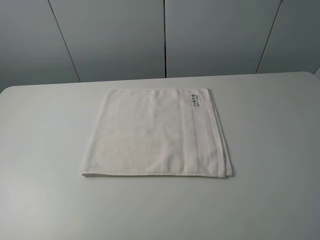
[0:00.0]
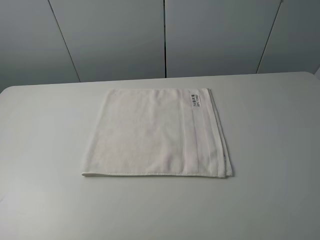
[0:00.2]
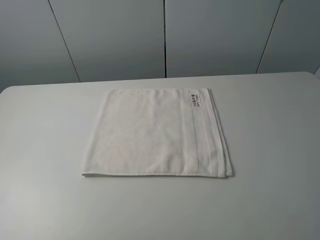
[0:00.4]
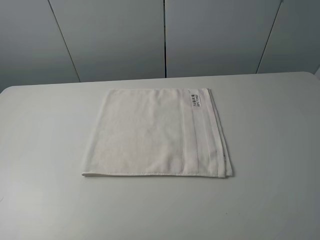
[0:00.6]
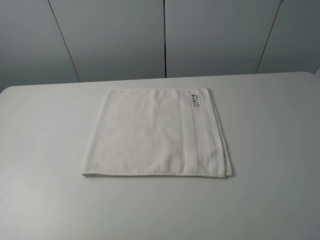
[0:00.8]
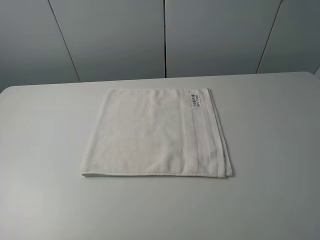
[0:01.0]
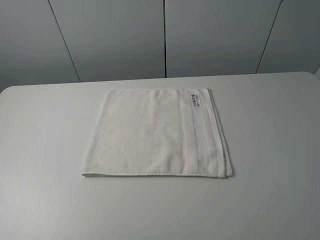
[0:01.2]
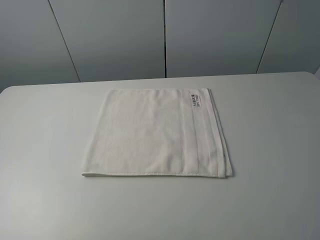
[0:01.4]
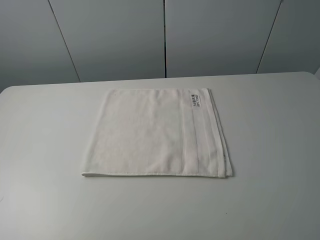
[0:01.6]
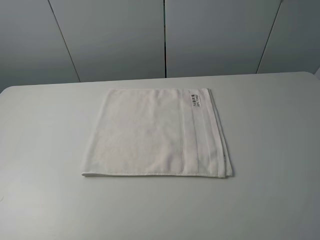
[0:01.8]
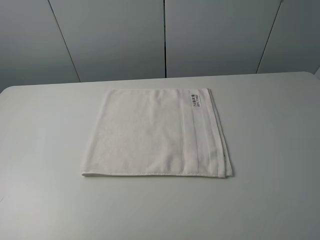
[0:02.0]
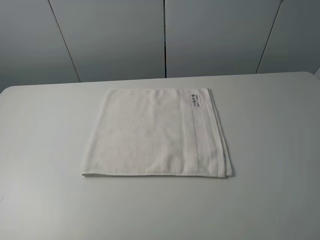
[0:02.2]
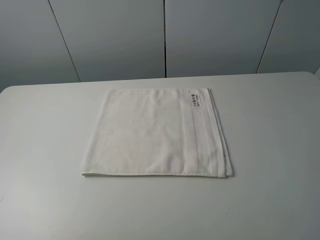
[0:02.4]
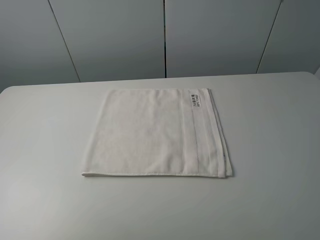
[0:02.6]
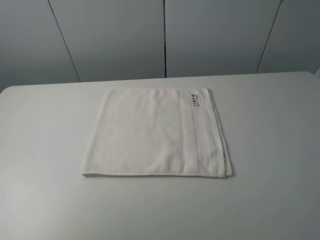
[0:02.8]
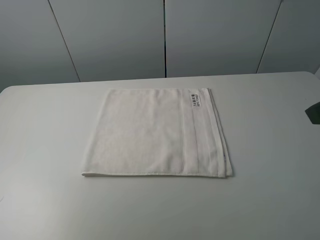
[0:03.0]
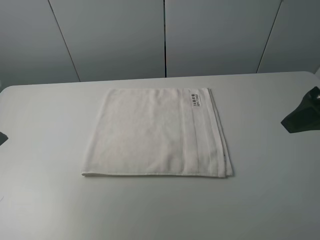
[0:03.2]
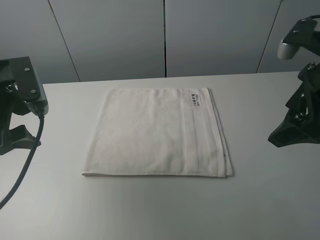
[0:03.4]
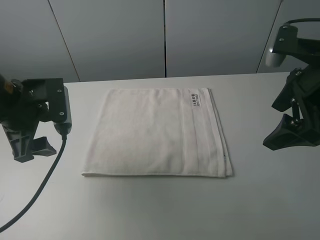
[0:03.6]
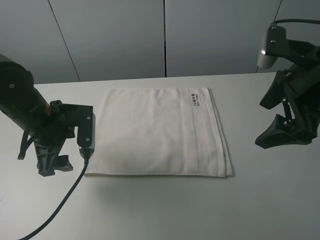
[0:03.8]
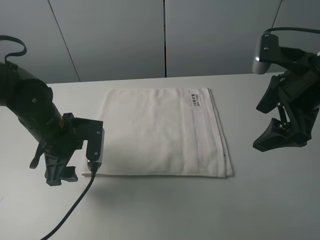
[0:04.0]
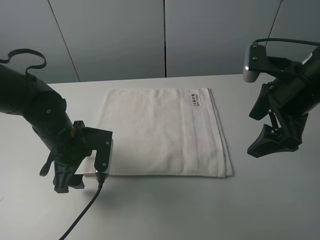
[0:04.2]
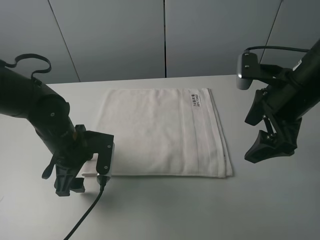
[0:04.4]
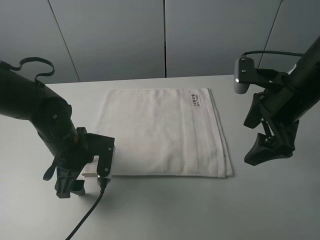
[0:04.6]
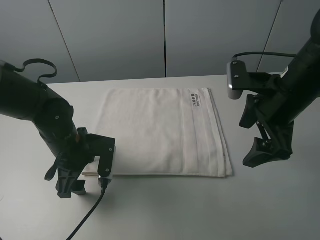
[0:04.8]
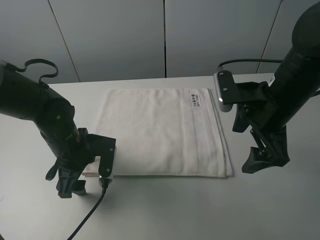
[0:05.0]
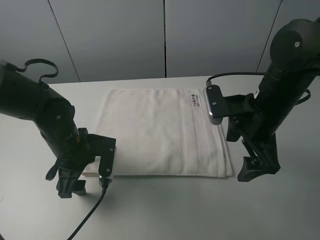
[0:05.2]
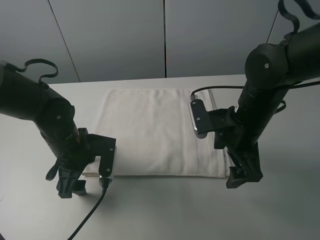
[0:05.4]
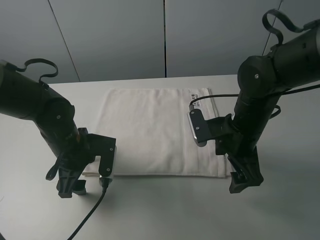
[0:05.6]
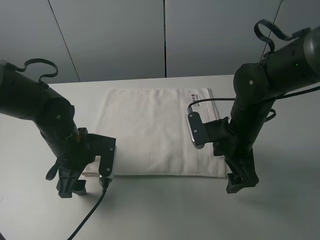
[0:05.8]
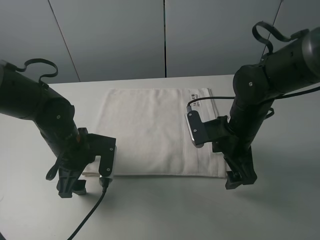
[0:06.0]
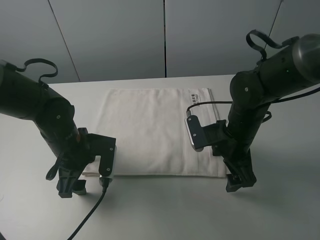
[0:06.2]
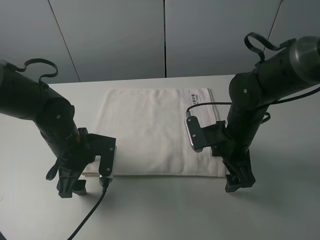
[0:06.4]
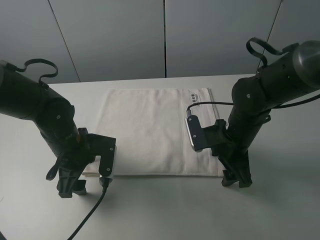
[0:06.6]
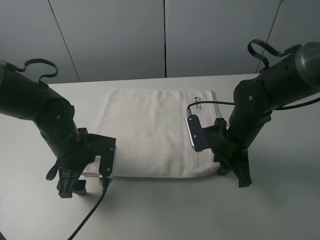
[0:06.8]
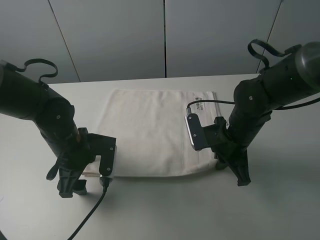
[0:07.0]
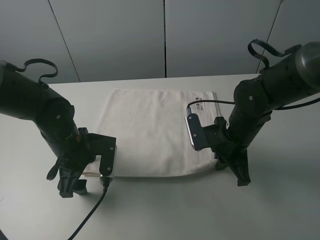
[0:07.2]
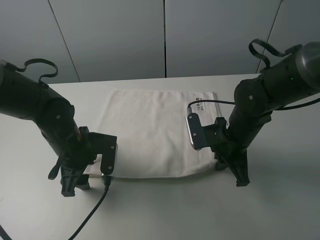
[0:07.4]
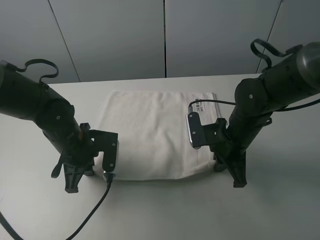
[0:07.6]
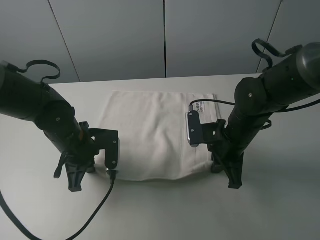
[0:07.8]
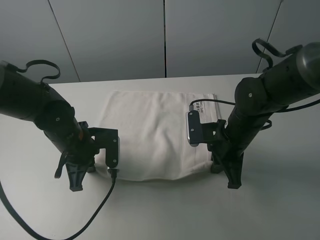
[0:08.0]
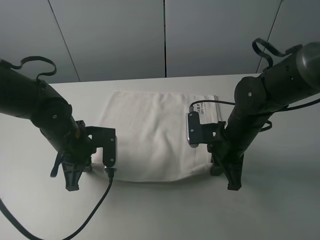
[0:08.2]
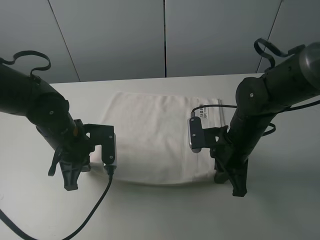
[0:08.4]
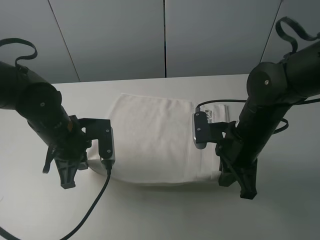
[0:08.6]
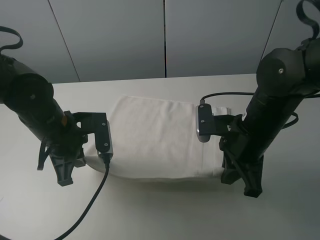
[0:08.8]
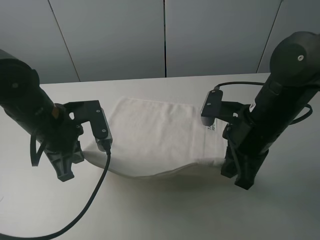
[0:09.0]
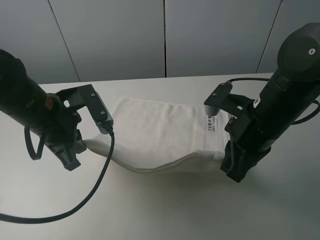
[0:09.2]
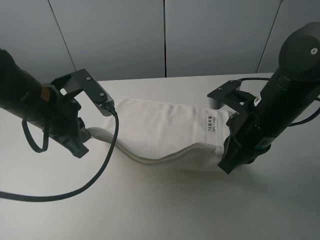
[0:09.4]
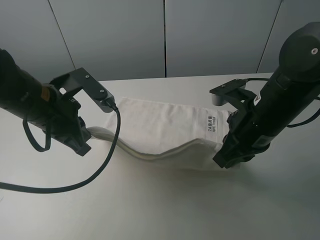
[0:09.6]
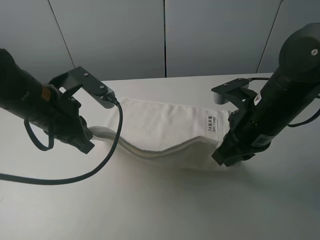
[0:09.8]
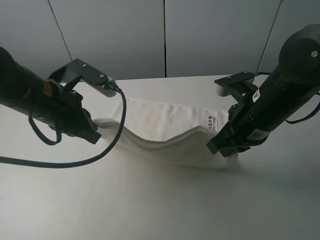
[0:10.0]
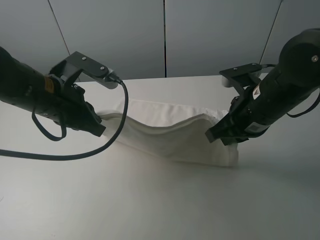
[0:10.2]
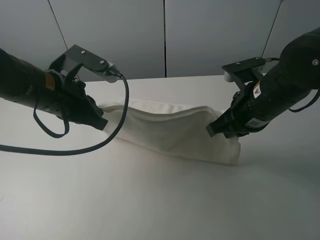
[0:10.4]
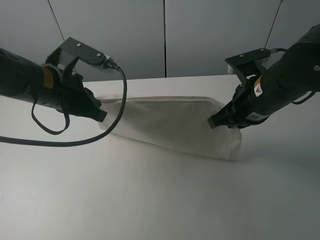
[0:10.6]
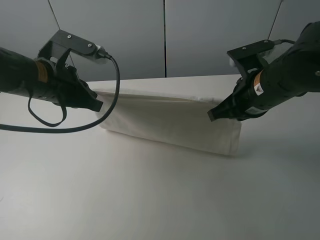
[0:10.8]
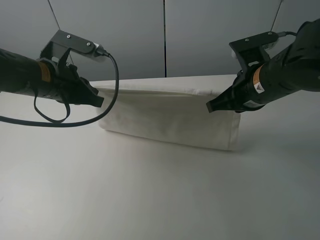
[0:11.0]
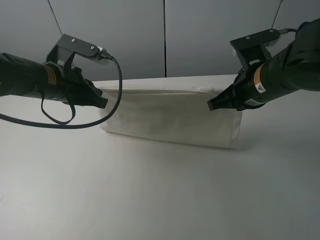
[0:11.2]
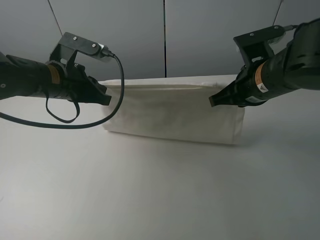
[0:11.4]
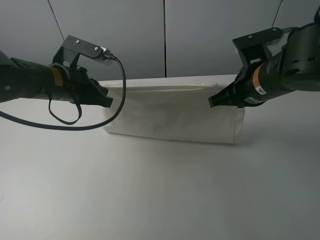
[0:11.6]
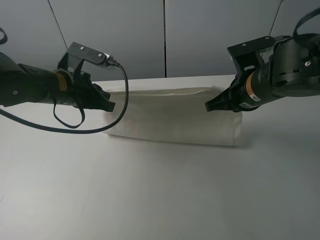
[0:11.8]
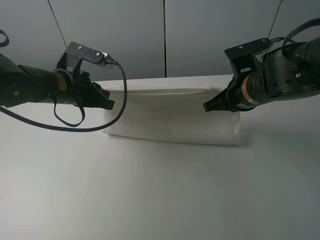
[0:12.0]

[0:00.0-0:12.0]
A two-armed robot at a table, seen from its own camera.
Task of the whole recording: fold the towels on the table.
Step, 0:00.0 to 0:06.8: Grasp the white towel with the right gripper.
Step, 0:07.0 to 0:07.6: Grasp the white towel with the left gripper.
0:00.0 to 0:01.6: Both grippers stay put.
0:03.0 to 0:04.4: The right gripper moves downward, forward and to the left, about 15 cm. The left gripper heads downward, to the right and forward, covering some 25 cm.
0:04.4 to 0:06.0: The right gripper travels downward and to the left by approximately 10 cm.
0:06.0 to 0:07.6: The left gripper closes; the right gripper closes its fingers.
0:07.6 to 0:09.0: Both grippers move upward, some 10 cm.
0:10.4 to 0:12.0: The left gripper heads forward, covering about 5 cm.

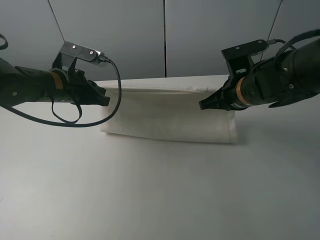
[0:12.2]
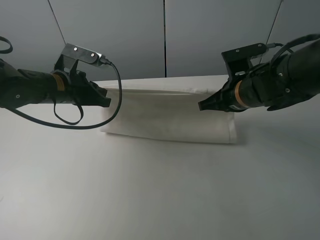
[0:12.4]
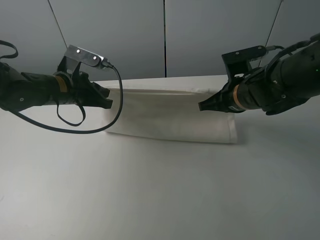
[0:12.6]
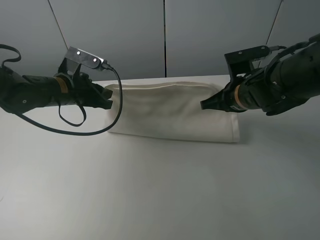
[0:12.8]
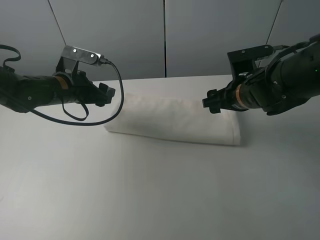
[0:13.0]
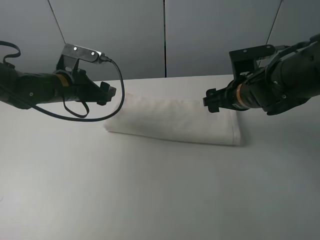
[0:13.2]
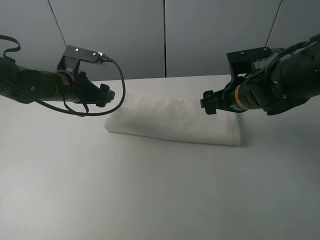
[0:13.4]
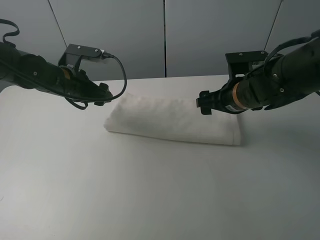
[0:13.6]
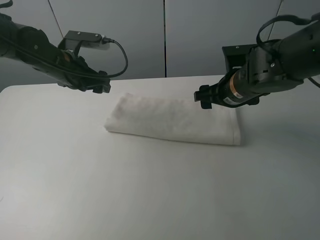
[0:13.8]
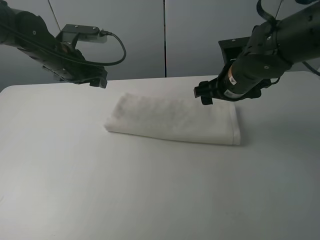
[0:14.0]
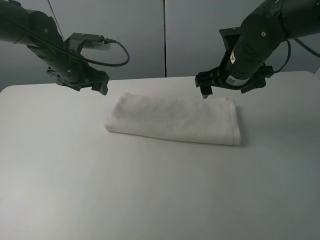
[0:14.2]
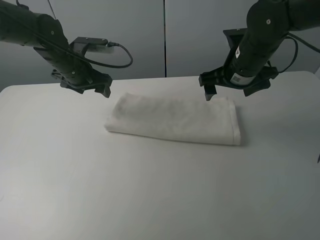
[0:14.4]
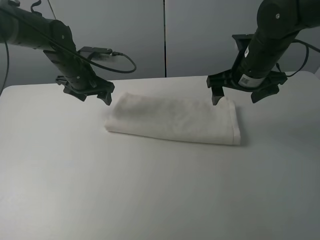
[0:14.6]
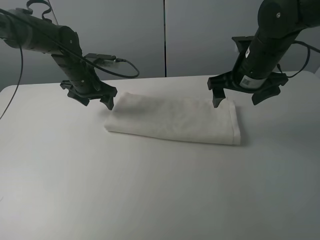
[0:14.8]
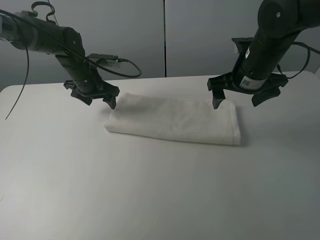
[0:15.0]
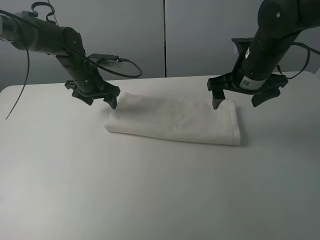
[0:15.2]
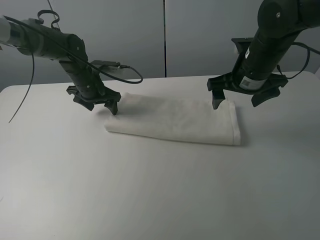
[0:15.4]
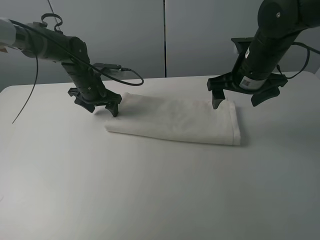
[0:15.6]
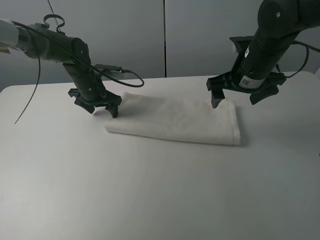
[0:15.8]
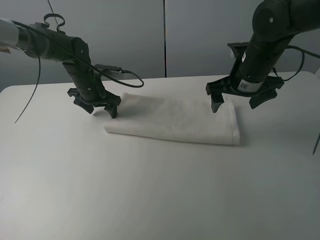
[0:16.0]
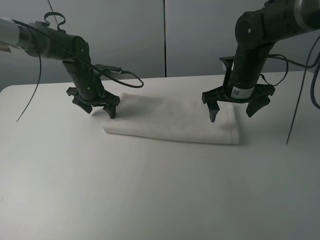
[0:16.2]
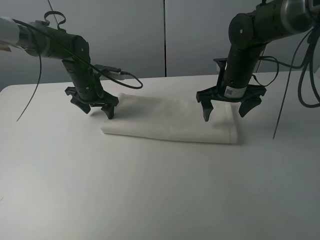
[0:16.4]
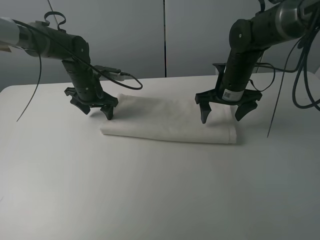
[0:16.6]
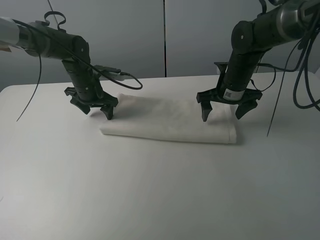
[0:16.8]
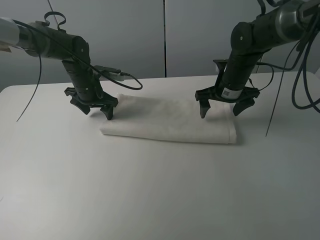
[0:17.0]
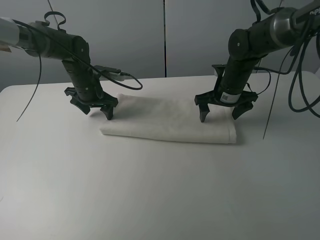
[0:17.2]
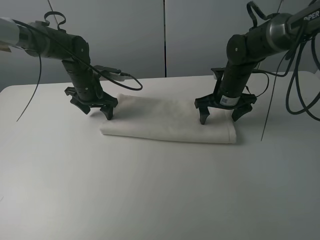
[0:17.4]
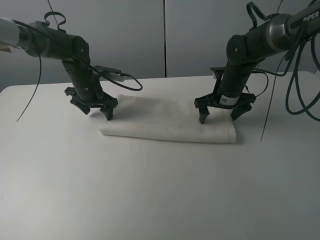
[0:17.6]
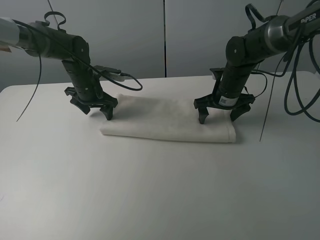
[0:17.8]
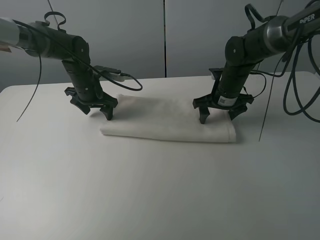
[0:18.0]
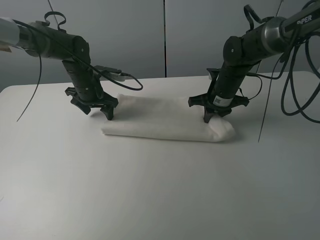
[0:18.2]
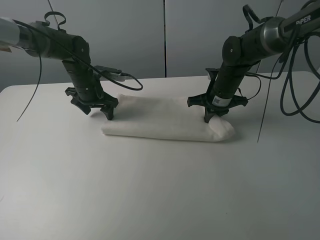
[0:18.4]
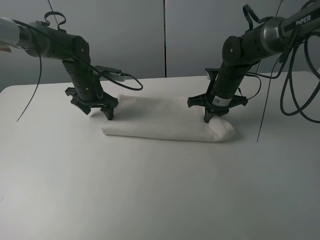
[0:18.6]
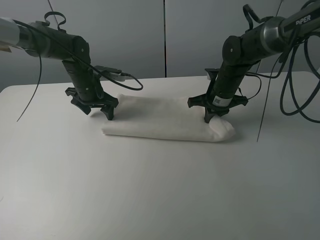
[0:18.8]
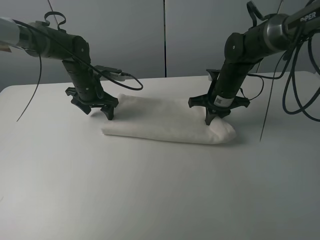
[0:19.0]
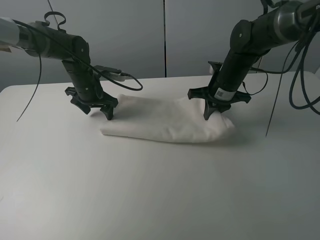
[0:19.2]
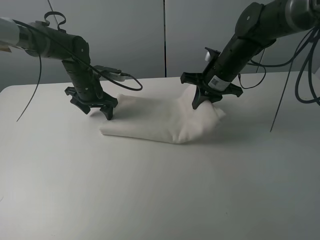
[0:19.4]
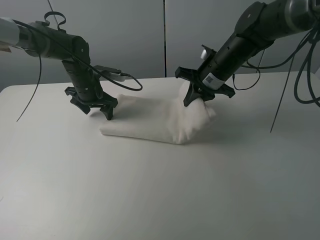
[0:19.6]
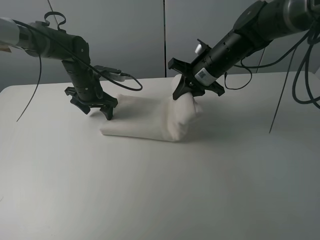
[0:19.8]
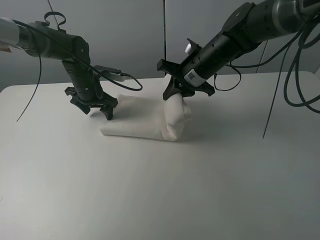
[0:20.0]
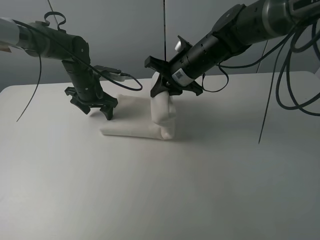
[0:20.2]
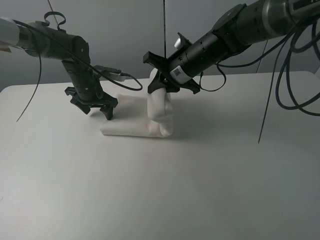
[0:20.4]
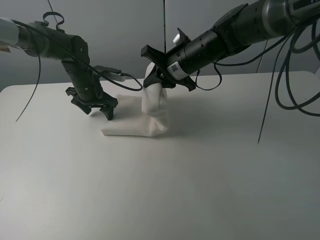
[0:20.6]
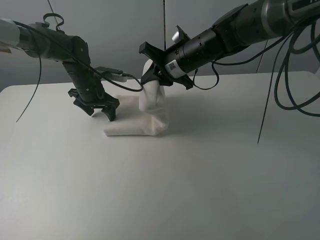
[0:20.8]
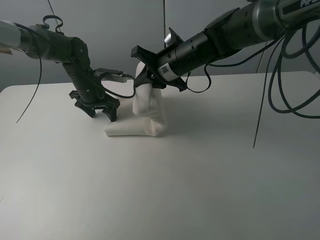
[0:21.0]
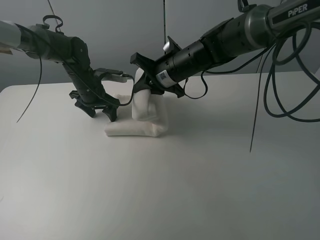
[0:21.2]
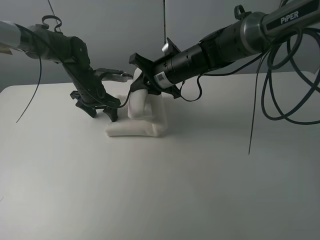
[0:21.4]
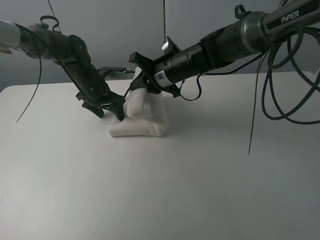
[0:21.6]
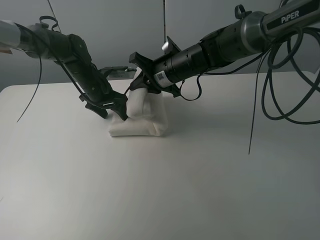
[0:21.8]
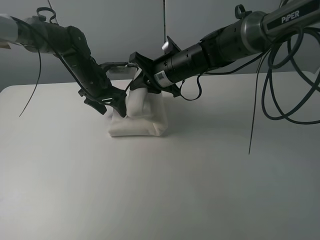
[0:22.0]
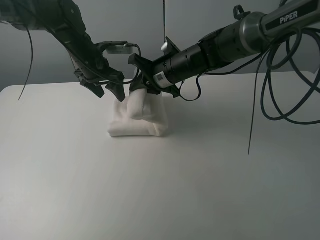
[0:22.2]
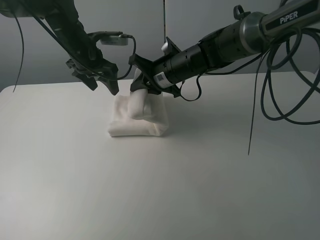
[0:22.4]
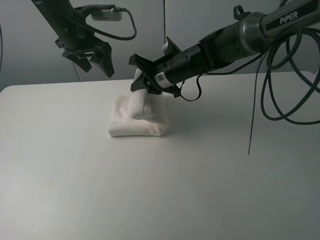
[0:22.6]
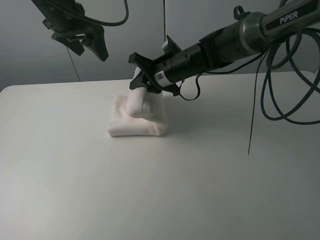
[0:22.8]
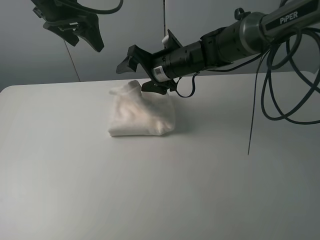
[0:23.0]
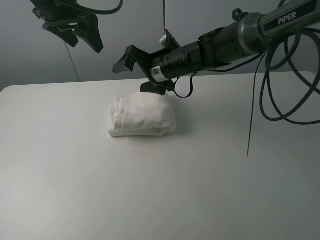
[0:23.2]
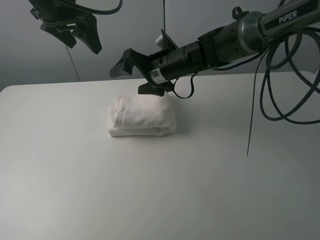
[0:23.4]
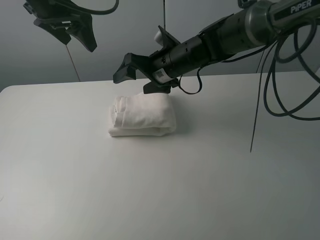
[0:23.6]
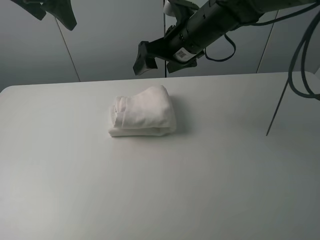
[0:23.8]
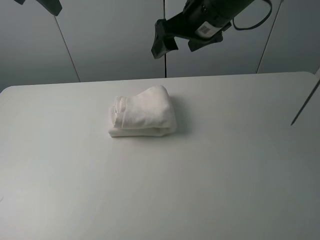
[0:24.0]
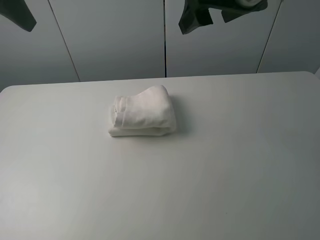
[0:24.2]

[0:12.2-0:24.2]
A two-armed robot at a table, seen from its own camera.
Task of the whole recording: fold the towels on the table.
Step, 0:13.4 to 0:15.6: Press on the white towel with the left gripper.
Step, 0:15.8 to 0:23.2: Fold the white towel from right to left with right gripper.
0:12.2 to 0:13.8: The left gripper travels forward by some 5 cm, and opens. The right gripper opens up.
0:13.8 to 0:15.2: The left gripper goes about 10 cm forward and downward.
0:15.2 to 0:16.6: The right gripper shifts about 5 cm downward.
0:16.6 to 0:18.2: The right gripper closes.
0:18.2 to 0:19.8: The right gripper travels upward by roughly 10 cm.
0:19.8 to 0:21.2: The right gripper heads to the left, covering roughly 10 cm.
0:21.2 to 0:22.6: The left gripper shifts roughly 15 cm upward.
0:22.6 to 0:24.2: The left gripper heads backward, upward and to the left, covering some 20 cm, while the right gripper is displaced upward, to the right and backward by some 25 cm, and opens its fingers.
